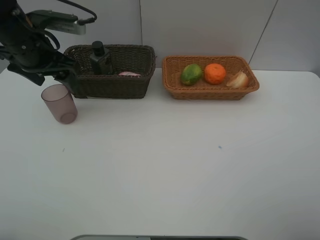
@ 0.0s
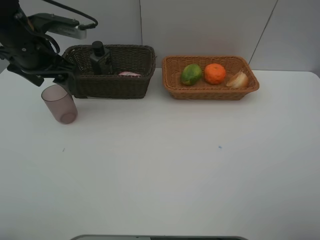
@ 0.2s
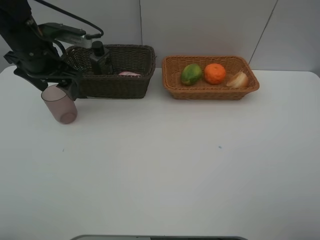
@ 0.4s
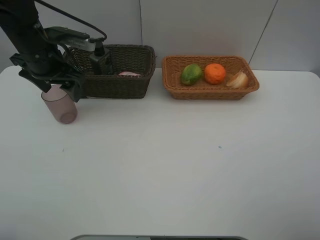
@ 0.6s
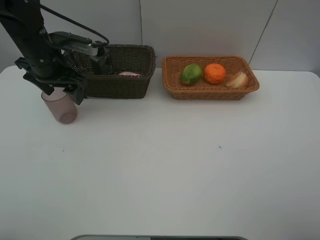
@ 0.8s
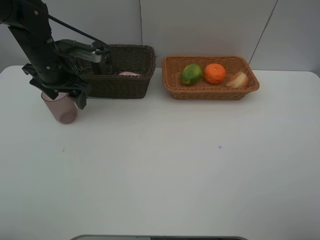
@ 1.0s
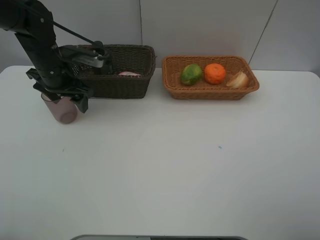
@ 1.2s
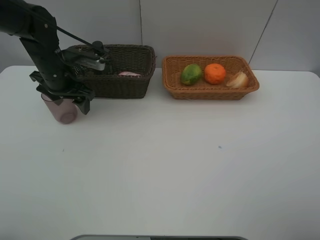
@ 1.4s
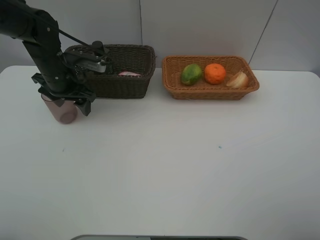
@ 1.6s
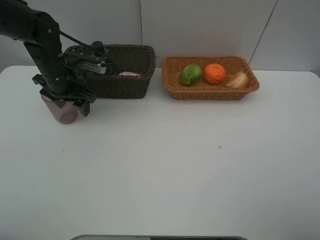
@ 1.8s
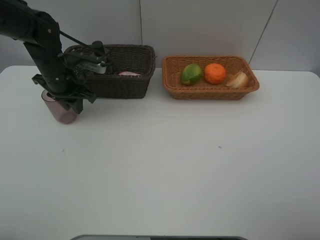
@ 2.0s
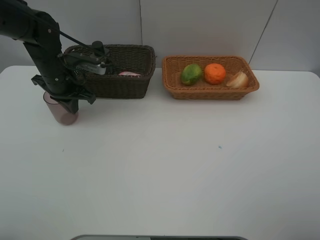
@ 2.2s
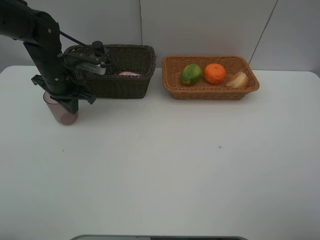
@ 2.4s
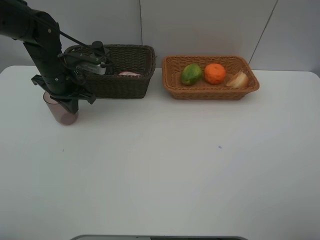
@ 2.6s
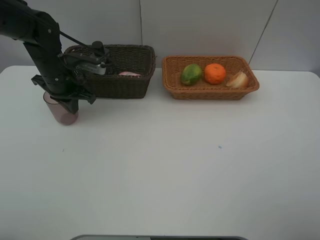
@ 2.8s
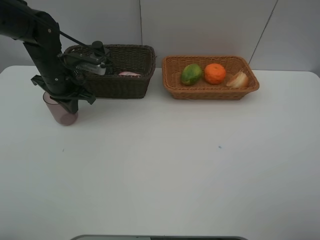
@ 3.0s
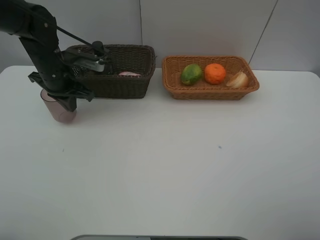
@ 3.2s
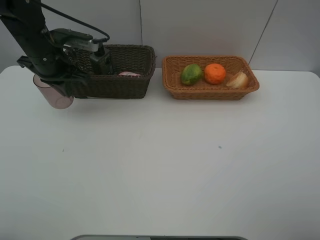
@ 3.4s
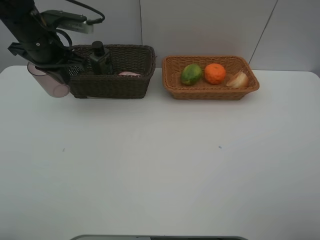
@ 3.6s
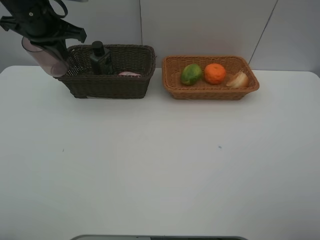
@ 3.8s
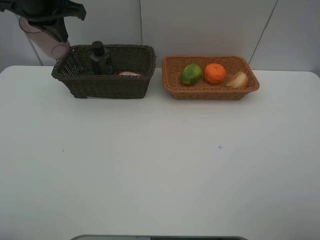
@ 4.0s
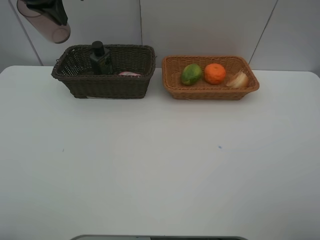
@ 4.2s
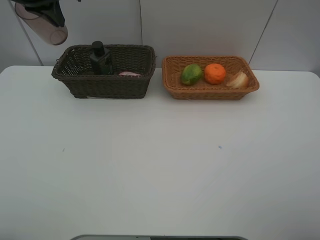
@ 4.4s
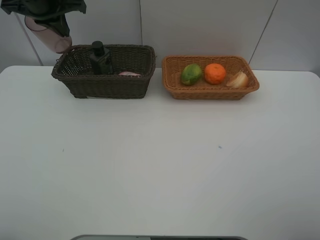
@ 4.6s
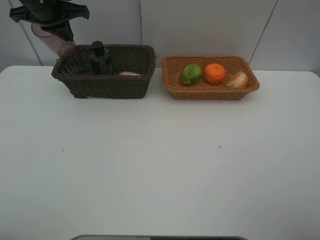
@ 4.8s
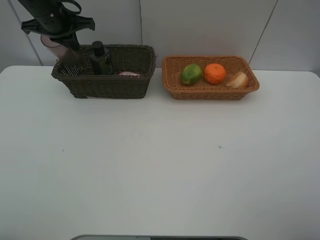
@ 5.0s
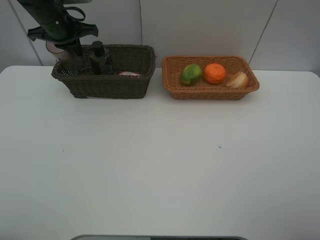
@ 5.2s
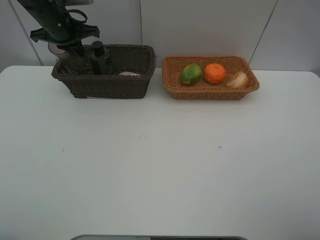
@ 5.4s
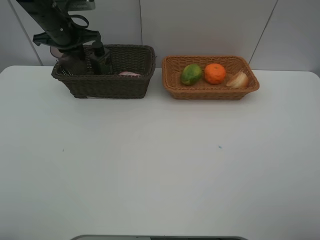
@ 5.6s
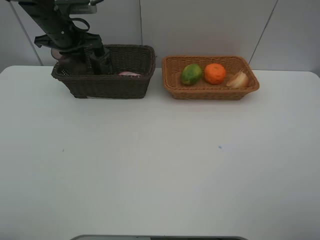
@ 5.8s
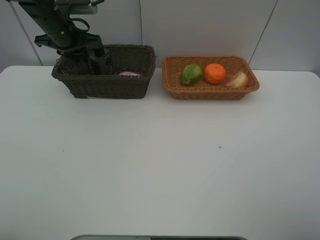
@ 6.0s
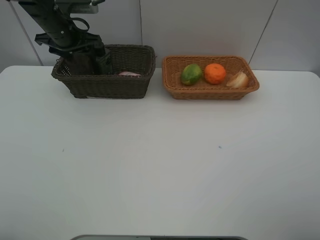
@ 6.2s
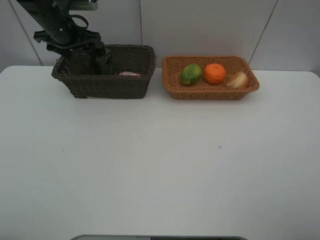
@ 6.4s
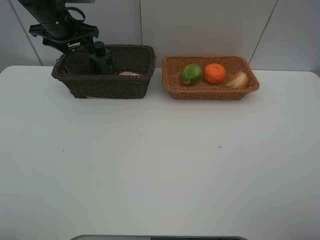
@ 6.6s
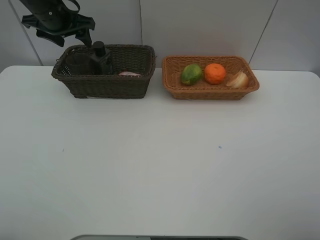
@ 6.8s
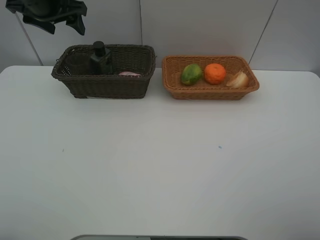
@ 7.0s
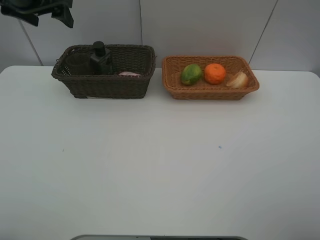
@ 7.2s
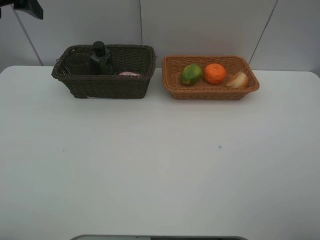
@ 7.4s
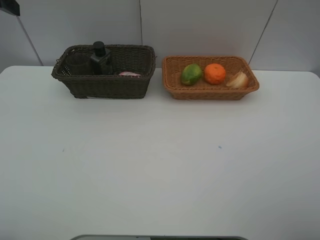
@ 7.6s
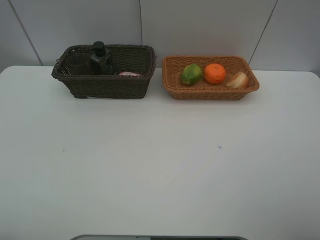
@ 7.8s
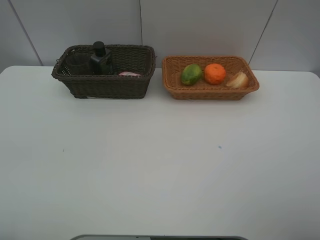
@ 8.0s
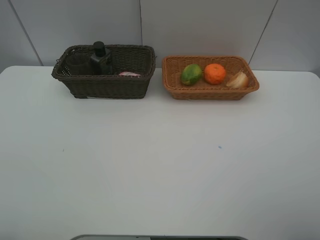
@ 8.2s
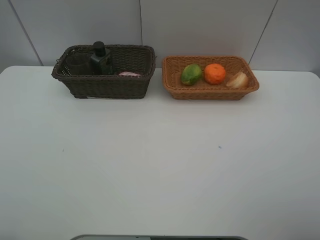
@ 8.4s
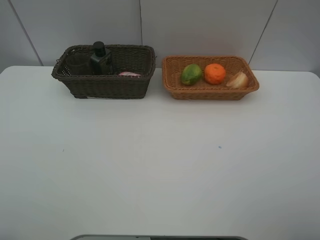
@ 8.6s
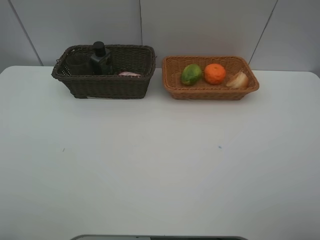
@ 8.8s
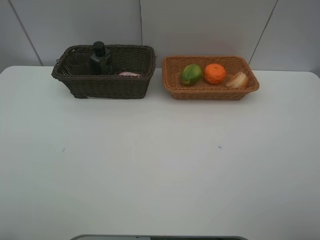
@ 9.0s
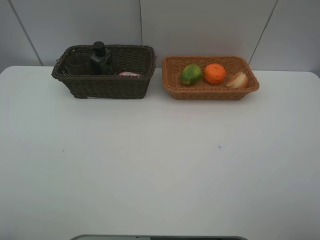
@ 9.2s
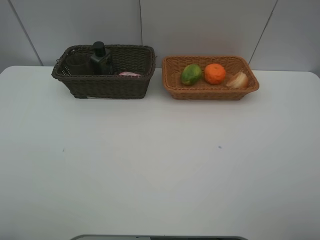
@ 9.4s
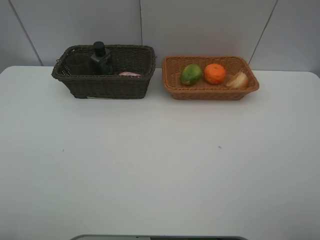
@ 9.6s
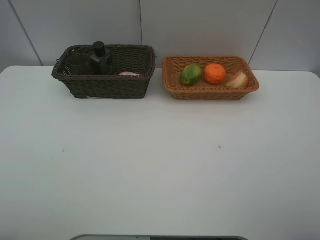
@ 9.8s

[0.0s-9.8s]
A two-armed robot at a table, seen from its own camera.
Task of the whole recording: place multiple objects separately in different baskets.
0.0s to 1.4s: The left gripper shifts approximately 10 cm downward.
1.4s to 2.8s: The left gripper closes.
2.8s to 4.2s: The left gripper moves upward, roughly 20 cm.
4.2s to 5.6s: The left gripper moves downward and forward, some 15 cm.
5.6s to 7.0s: The left gripper moves upward, approximately 10 cm, and opens up.
7.0s to 8.4s: The left gripper shifts approximately 35 cm backward.

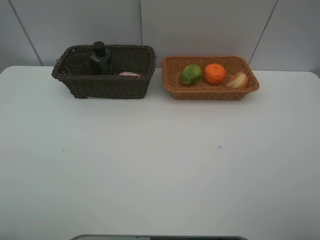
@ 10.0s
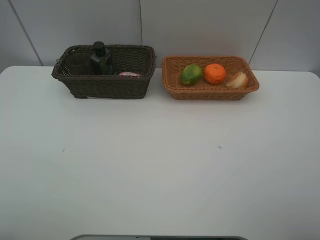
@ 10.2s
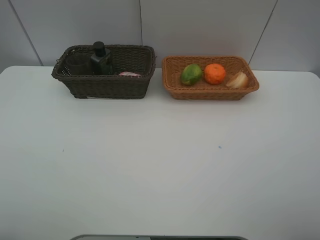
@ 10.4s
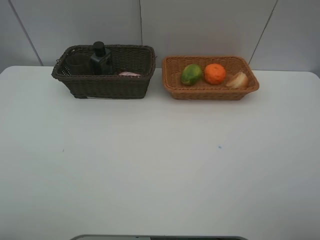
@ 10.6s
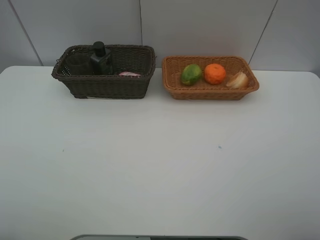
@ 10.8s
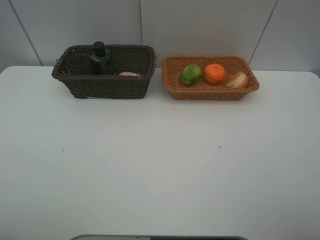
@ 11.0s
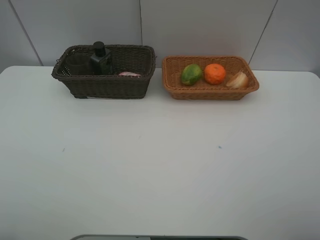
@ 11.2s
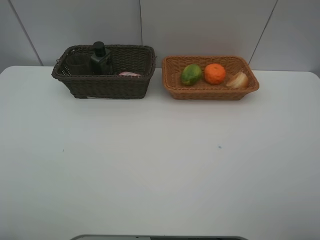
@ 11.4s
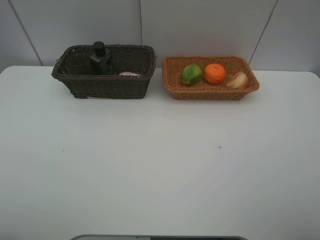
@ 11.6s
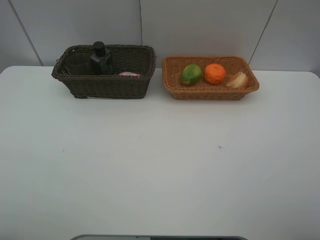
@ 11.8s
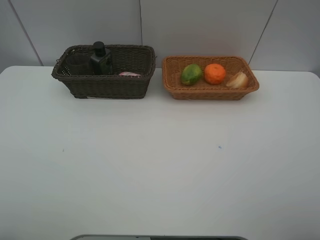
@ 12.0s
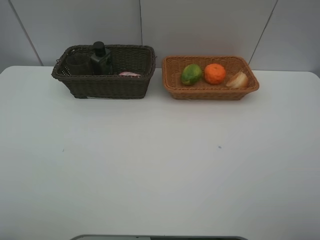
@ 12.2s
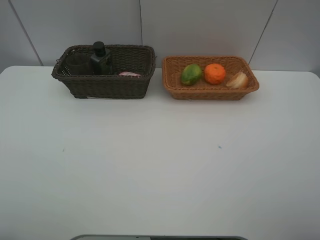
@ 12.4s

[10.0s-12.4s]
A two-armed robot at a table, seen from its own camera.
Task of the whole recording: place multiple objects separately in different baskets.
10.0s to 12.4s: The two grippers keep their place.
